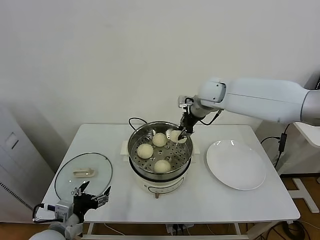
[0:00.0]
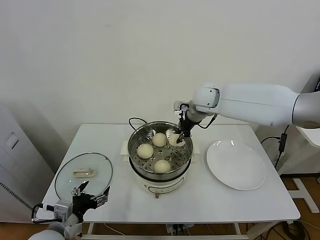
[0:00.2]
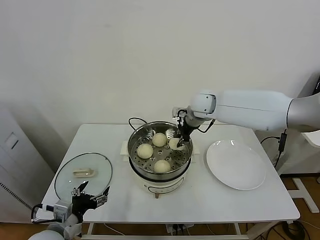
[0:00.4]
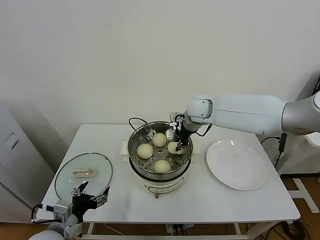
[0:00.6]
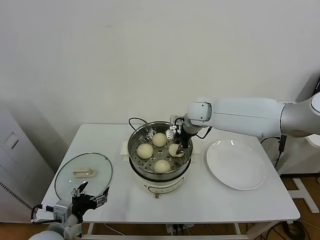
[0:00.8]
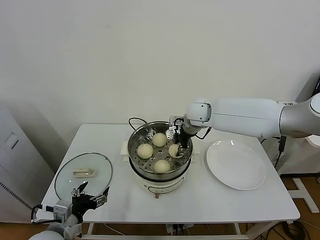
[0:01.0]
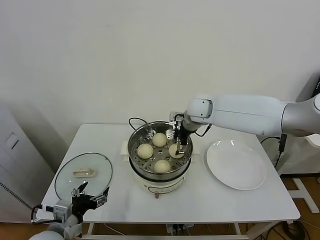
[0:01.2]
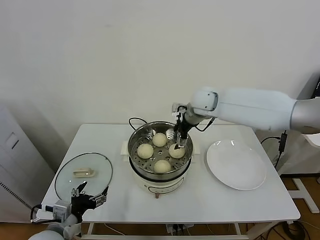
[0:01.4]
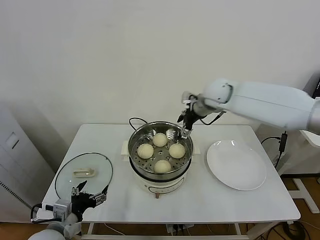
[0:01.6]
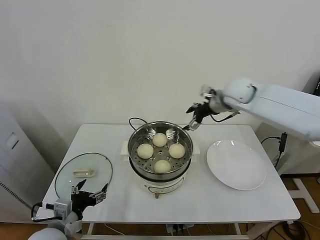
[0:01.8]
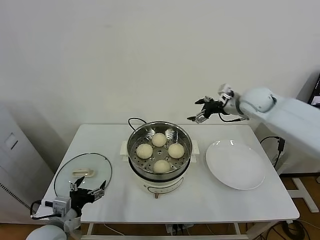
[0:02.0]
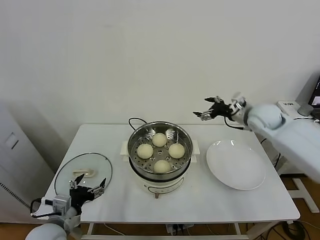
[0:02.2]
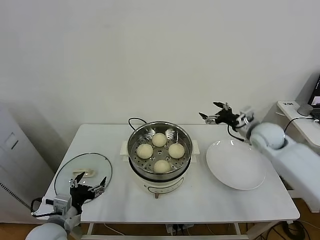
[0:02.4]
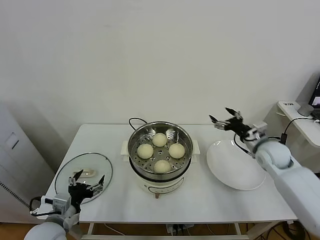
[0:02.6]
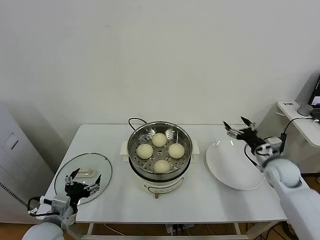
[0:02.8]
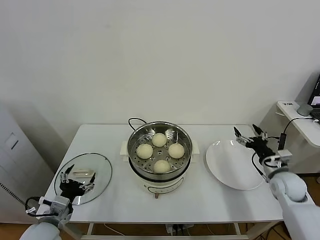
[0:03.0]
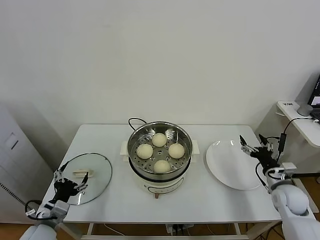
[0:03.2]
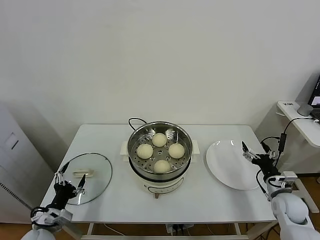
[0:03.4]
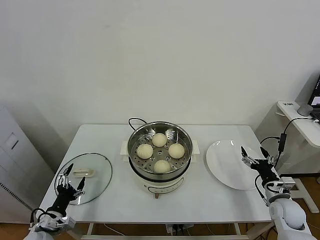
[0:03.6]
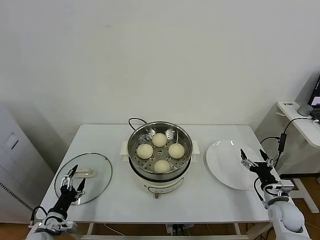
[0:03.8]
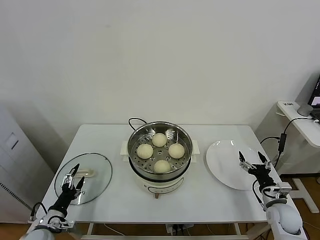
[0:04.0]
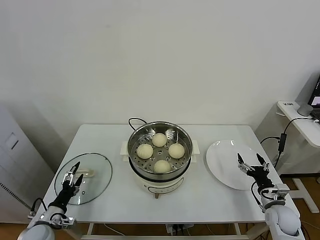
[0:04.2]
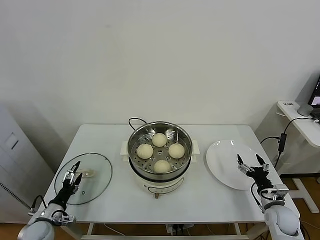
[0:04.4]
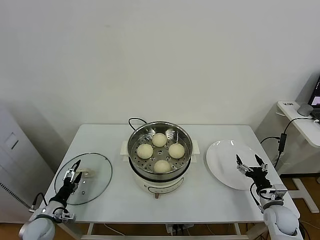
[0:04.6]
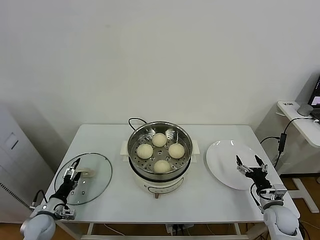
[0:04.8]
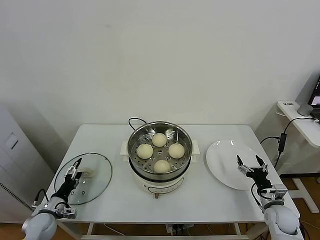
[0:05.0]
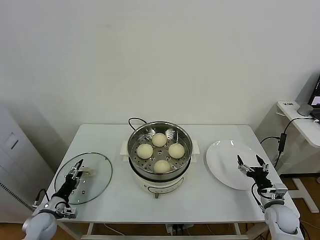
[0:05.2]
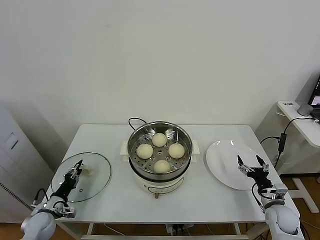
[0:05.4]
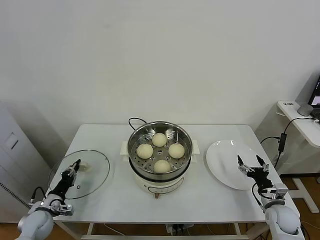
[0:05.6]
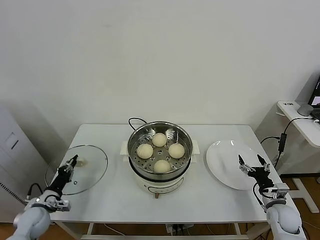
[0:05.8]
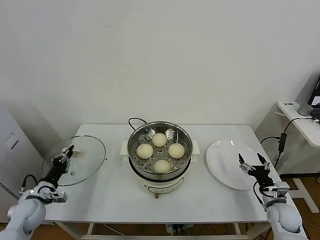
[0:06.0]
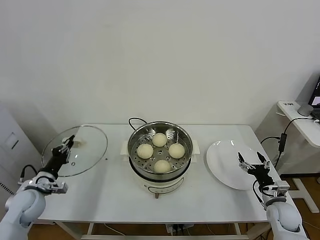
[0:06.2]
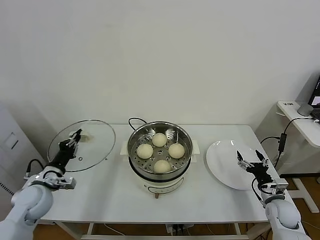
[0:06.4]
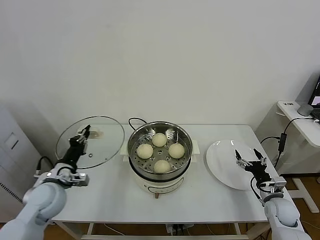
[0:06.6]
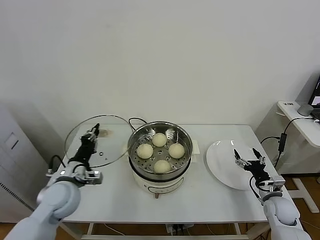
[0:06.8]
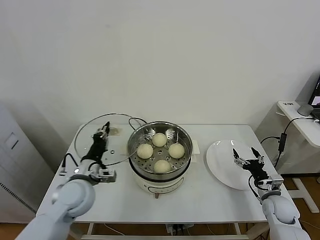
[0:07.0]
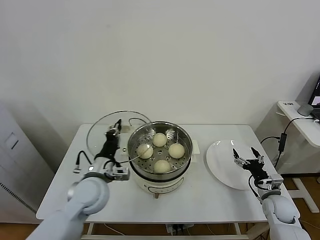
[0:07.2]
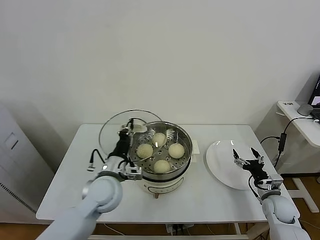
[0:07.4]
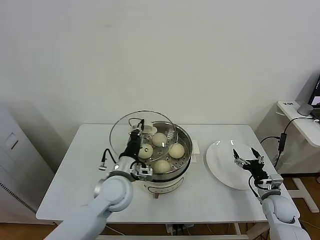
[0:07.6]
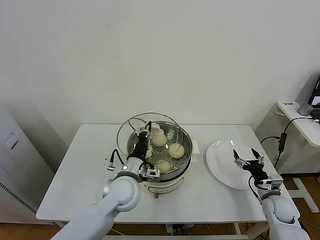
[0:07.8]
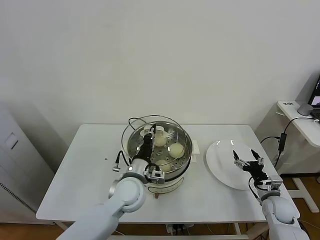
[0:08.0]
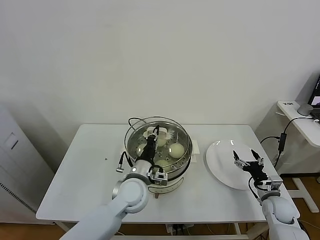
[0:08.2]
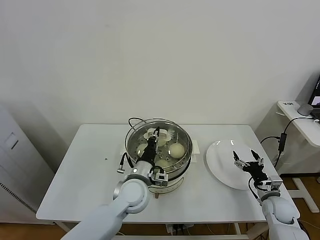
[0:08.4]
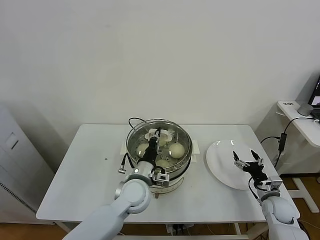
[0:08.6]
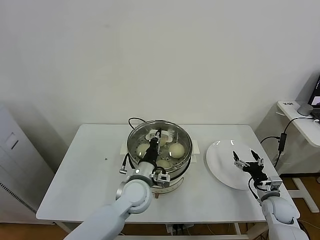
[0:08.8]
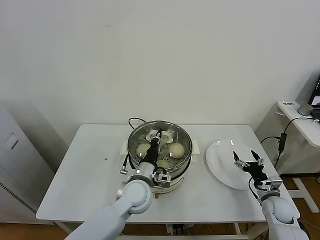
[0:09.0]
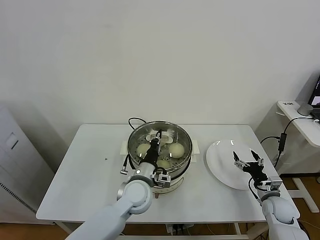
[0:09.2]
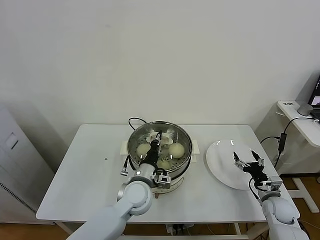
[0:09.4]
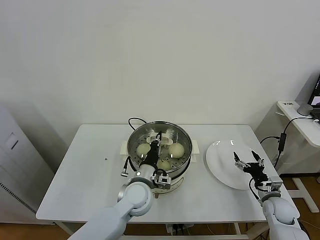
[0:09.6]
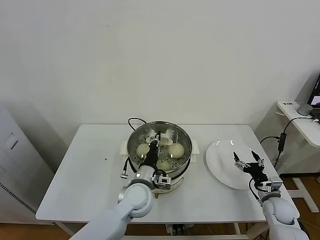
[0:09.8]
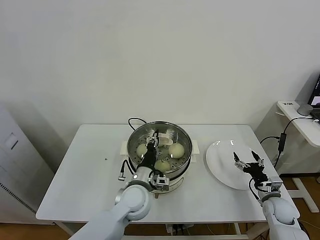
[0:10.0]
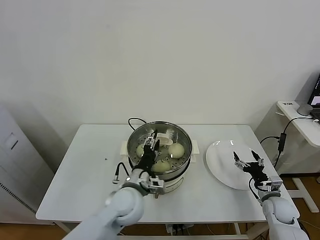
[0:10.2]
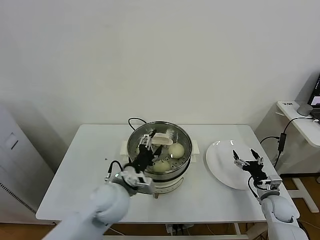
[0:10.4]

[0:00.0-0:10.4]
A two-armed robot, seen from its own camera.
Task of the whole recording: take steamed baozi put them in steamer.
Step, 0:01.4 to 0:06.0: Grasp the pot lid with left gripper.
Step, 0:06.2 to 0:10.2: Place the pot lid on the steamer with left gripper.
0:00.0 to 0:01.4: The right gripper opens its fingers.
0:01.4 to 0:03.0: The right gripper is displaced to the right, downward and backward by approximately 40 cm.
0:03.0 to 0:04.4: The right gripper is displaced downward and backward by approximately 15 cm. Meanwhile the left gripper is displaced downward and to the left by roughly 15 cm.
0:04.4 to 0:06.0: The left gripper is displaced upward by roughly 5 cm, and closes up.
0:06.0 to 0:07.4: The left gripper moves to the right and upward, approximately 30 cm.
0:07.4 to 0:09.0: The left gripper travels to the right by approximately 10 cm.
0:09.0 to 0:10.4: The left gripper ends up roughly 10 cm from where it was, and opens.

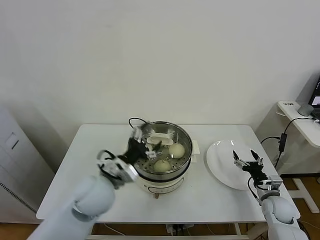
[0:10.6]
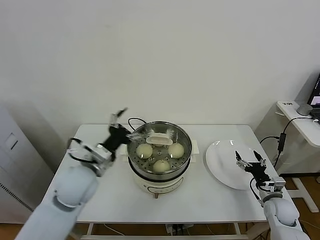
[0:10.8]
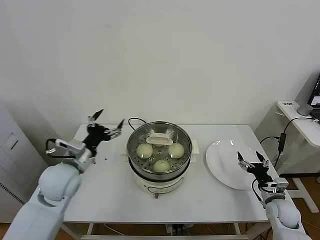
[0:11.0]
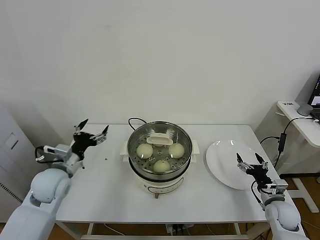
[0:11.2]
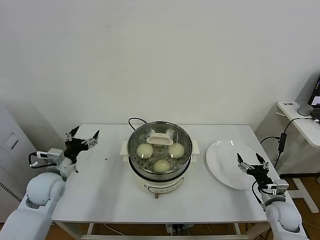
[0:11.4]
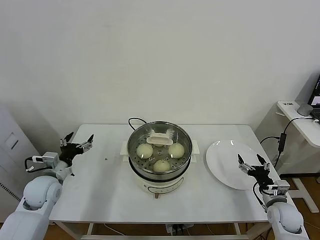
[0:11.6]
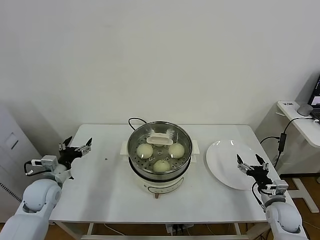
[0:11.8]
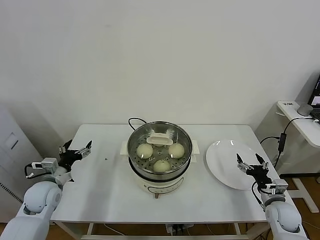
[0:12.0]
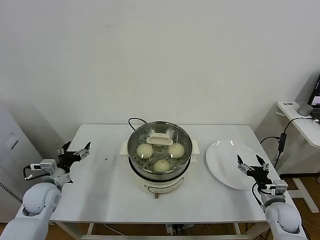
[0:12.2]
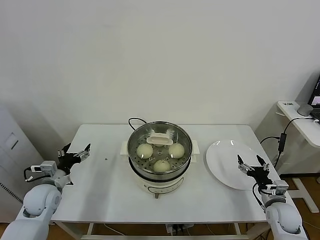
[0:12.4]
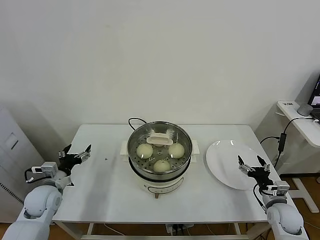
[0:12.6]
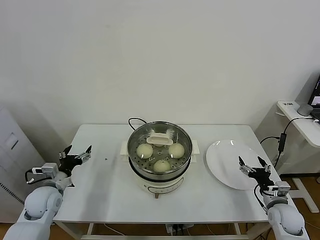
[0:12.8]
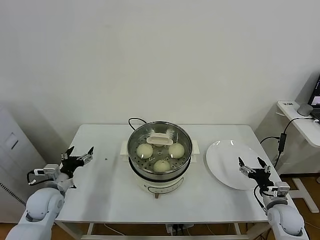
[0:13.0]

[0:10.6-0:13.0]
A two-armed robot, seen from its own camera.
Task of the whole recording: take steamed baozi put them in steamer.
0:10.6 to 0:11.8: The left gripper goes about 20 cm to the left.
0:11.8 to 0:13.0: There are only small adjustments of the grippers.
